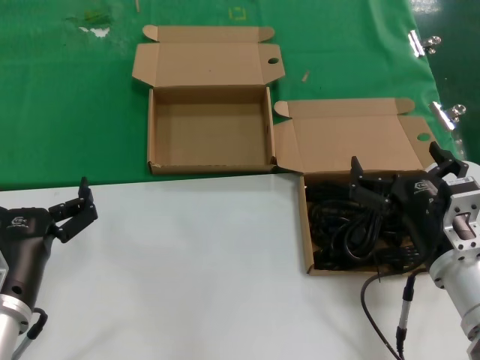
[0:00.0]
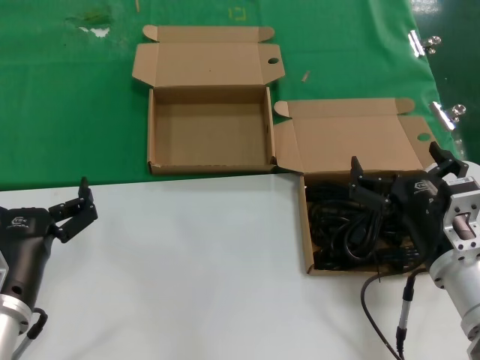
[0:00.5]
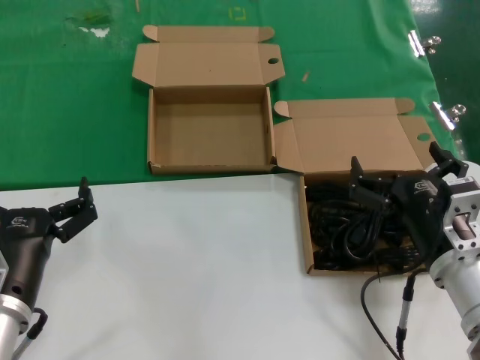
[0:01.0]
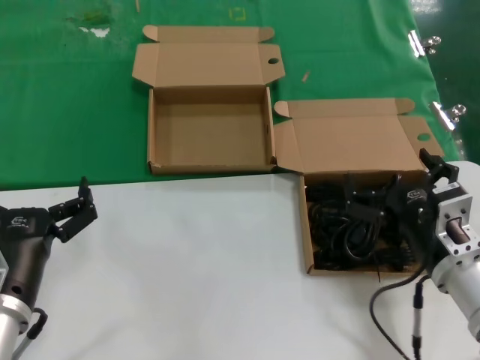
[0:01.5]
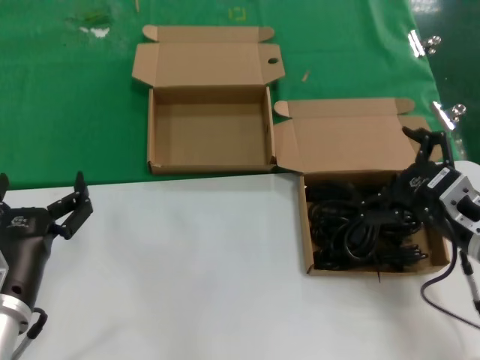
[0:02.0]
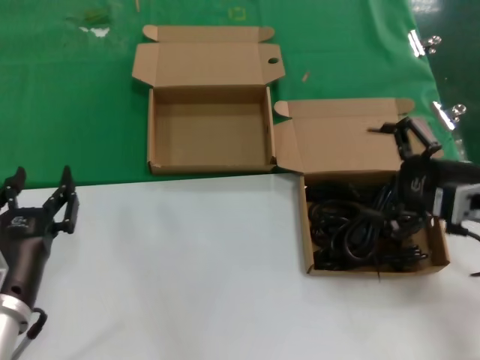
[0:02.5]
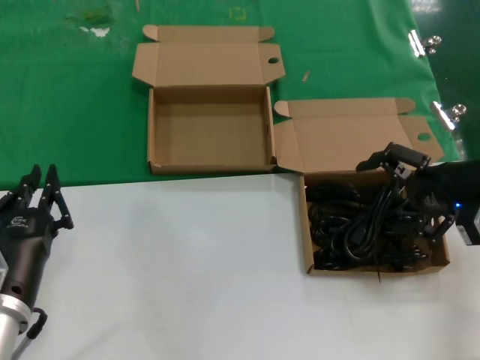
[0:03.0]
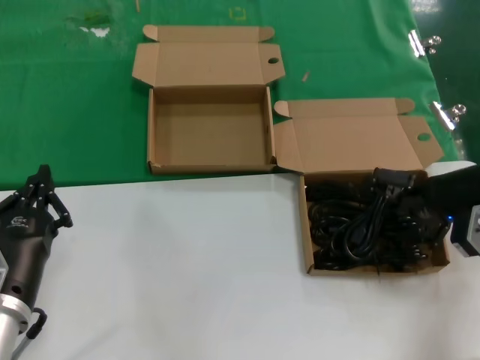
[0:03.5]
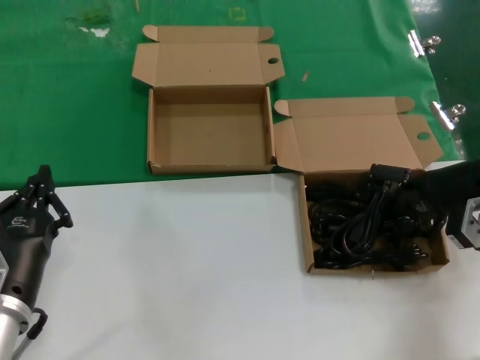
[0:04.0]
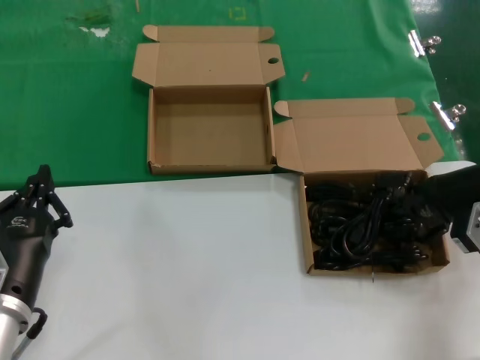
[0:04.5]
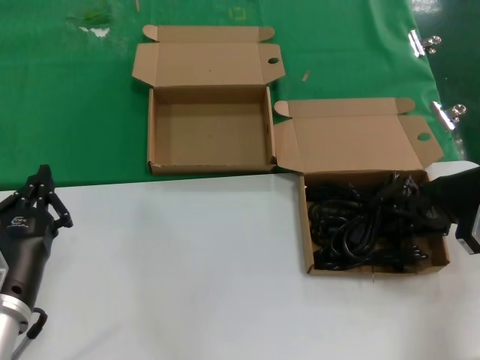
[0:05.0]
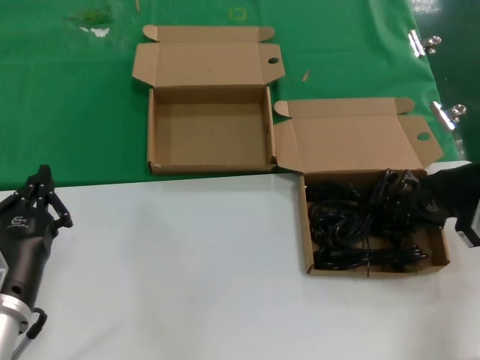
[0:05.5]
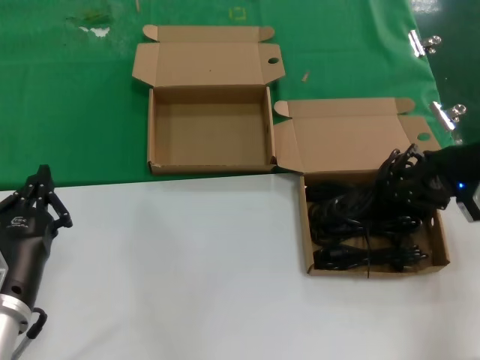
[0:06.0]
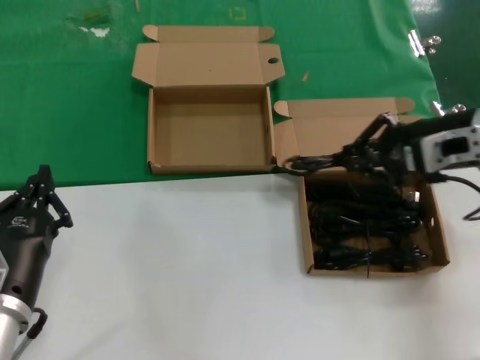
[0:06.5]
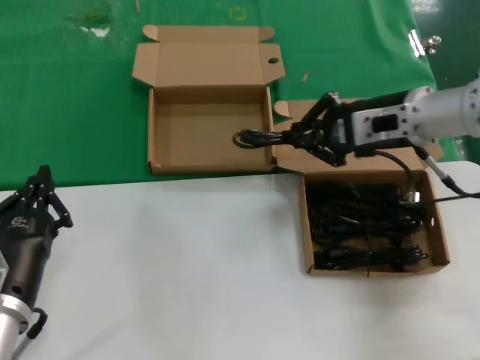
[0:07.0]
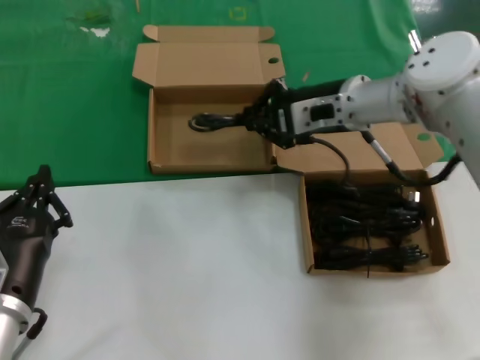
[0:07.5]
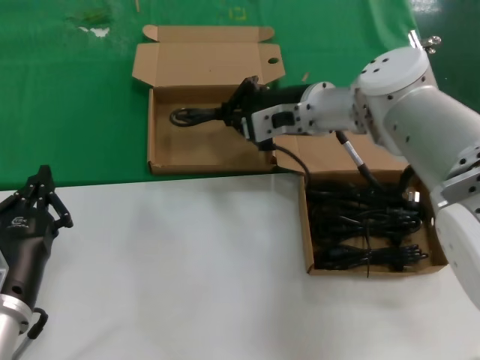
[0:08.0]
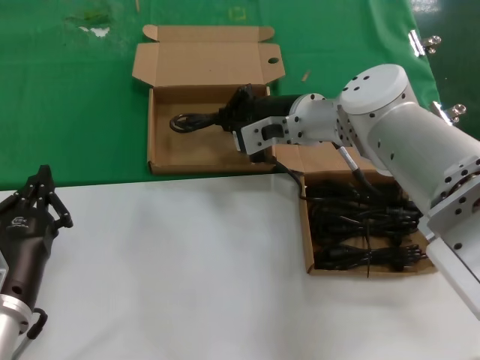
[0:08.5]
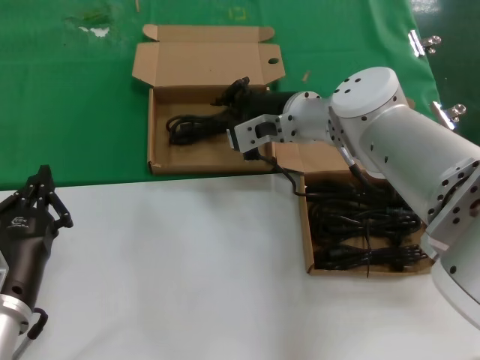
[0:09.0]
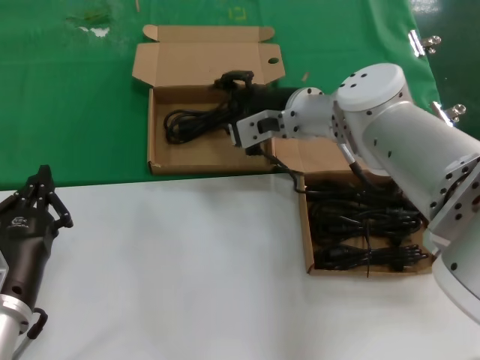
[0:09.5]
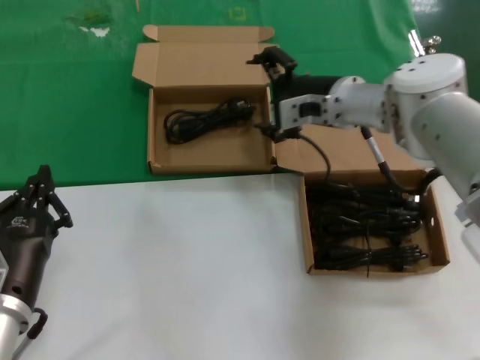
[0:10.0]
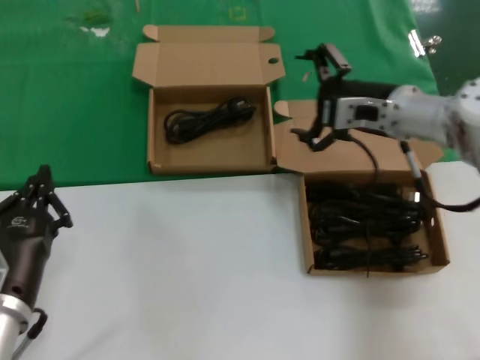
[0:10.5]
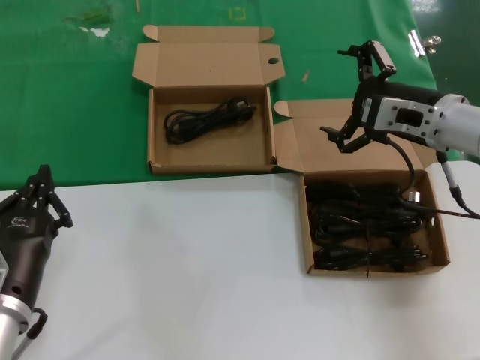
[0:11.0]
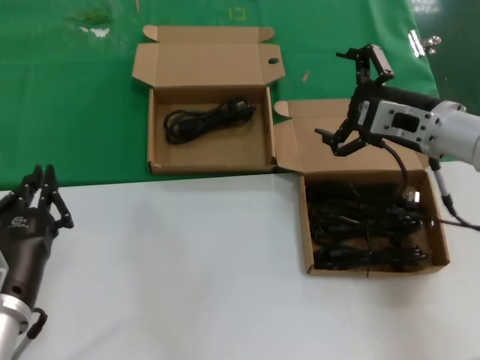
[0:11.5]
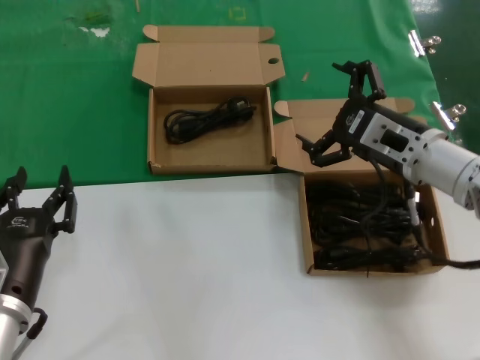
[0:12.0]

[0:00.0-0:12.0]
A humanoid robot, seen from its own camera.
Task of the whole recording: take the parts from the box containing them and put them into an empty box.
Step, 0:00.0 to 0:05.0: Grasp the data cable.
Step, 0:05.5 to 0:08.5: Place the data cable in the another box.
0:00.0 to 0:02.0: The right hand is displaced to the right by some 5 cm.
0:02.0 to 0:04.0: The right hand moves forward, to the right and upward, approximately 15 cm.
0:04.0 to 0:06.0: The right hand shifts by some 5 cm.
0:06.0 to 0:08.0: The right hand travels to the left and forward by roughly 25 cm.
0:08.0 to 0:10.0: The hands make only small movements.
0:10.0 to 0:12.0: The right hand heads backward and to the right, covering approximately 15 cm.

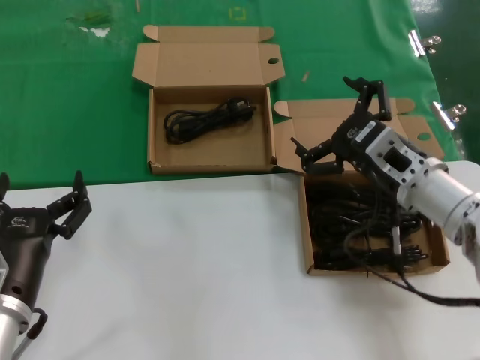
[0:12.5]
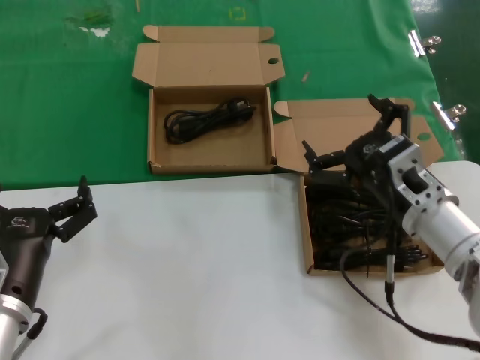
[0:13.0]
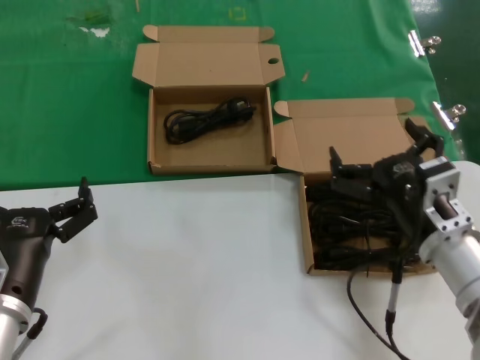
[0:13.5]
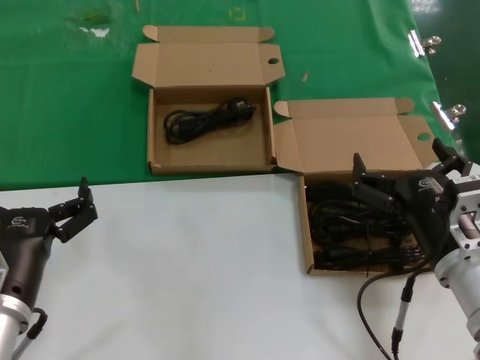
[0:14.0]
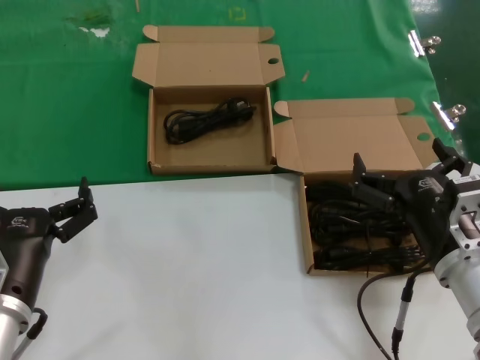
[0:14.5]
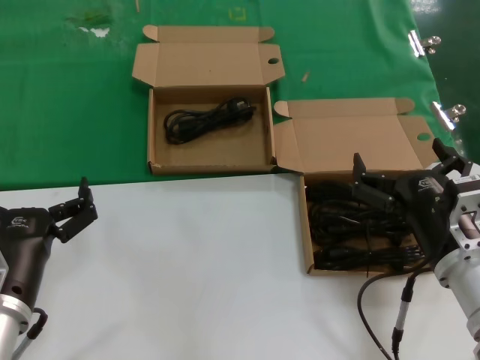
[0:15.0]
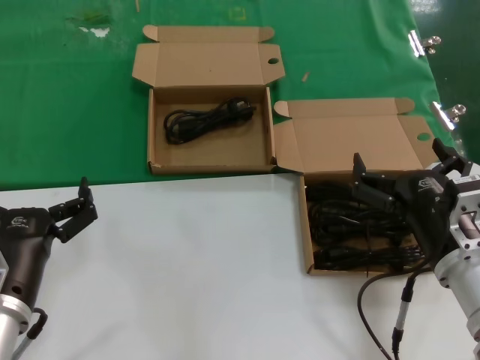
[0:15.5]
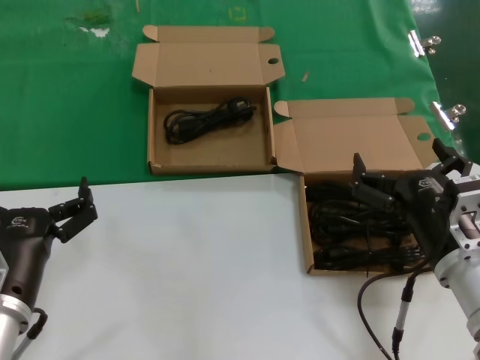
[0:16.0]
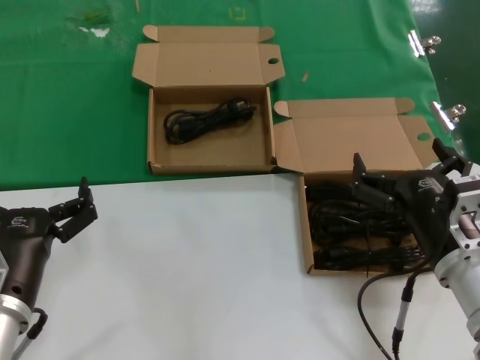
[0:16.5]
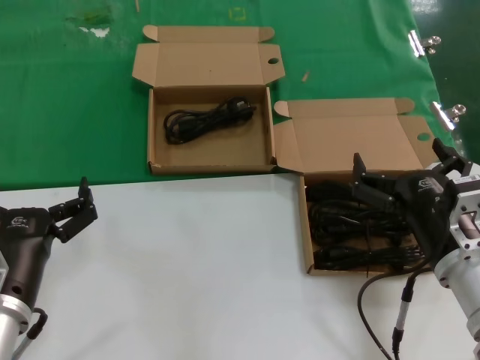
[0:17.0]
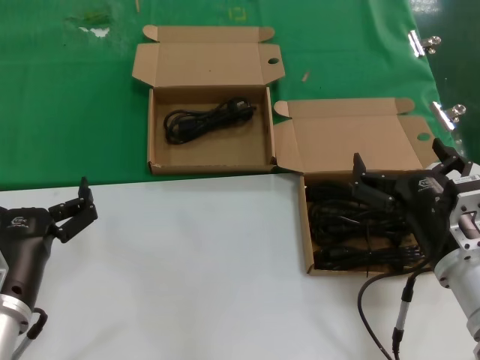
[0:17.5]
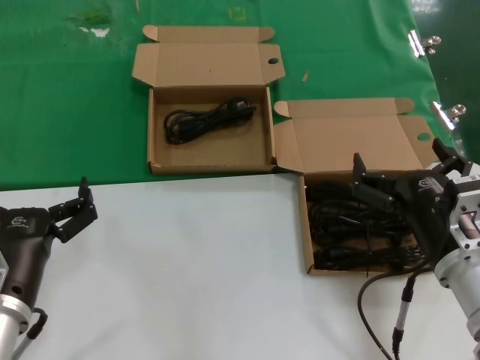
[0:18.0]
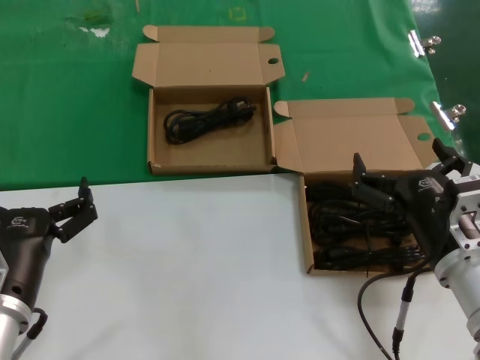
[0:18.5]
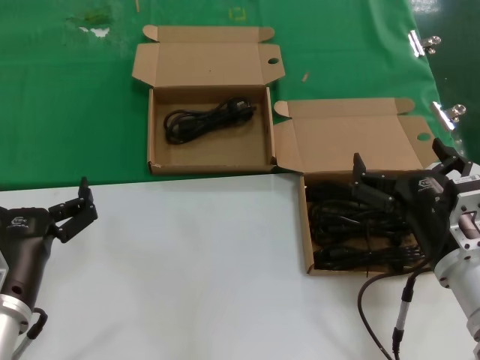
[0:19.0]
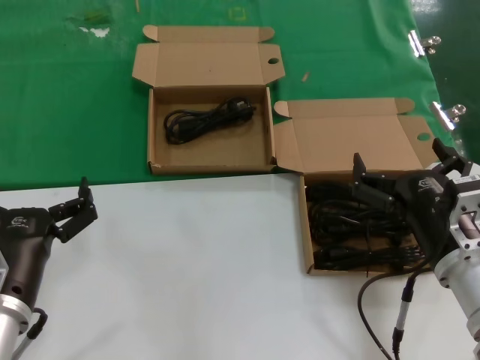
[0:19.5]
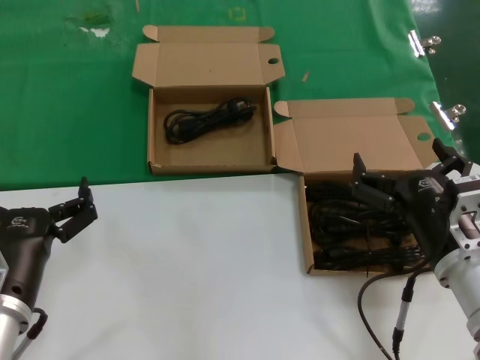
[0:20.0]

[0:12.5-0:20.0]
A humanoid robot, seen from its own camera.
Task of the whole recording: take the parts from the box containing them and put them into an empty box.
0:12.5 to 0:14.5: The right hand heads backward and downward, covering some 10 cm.
0:14.5 to 0:20.0: The two hands keep their place.
